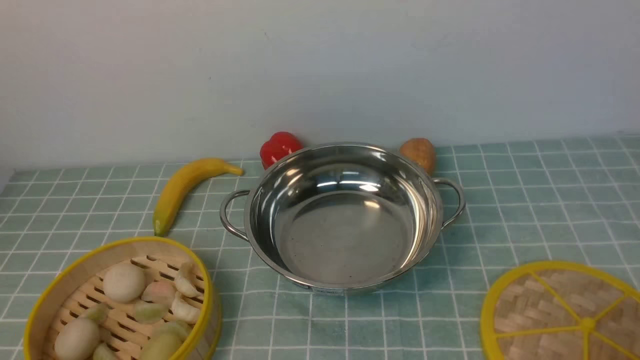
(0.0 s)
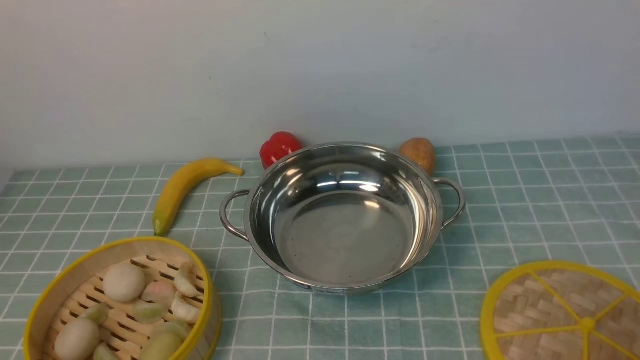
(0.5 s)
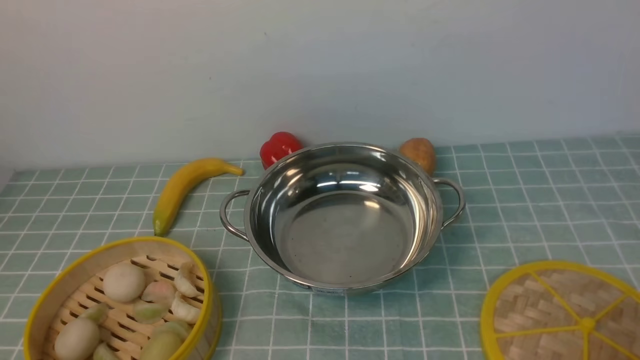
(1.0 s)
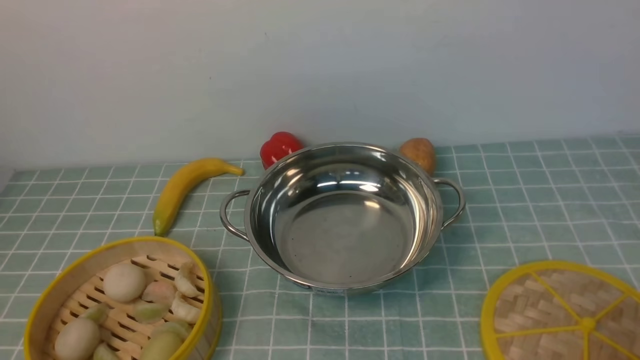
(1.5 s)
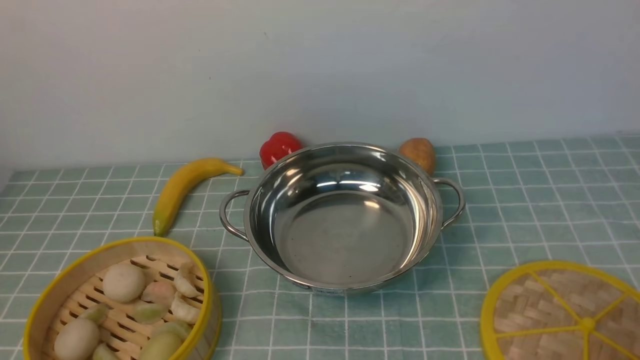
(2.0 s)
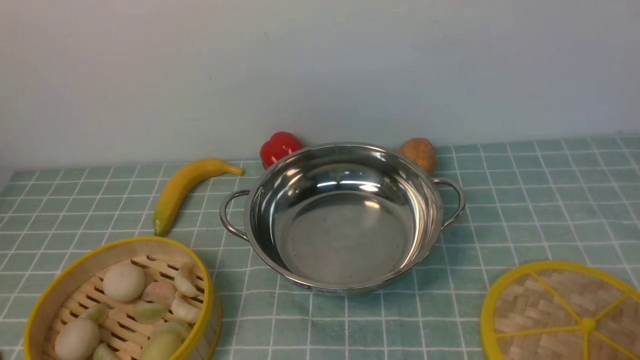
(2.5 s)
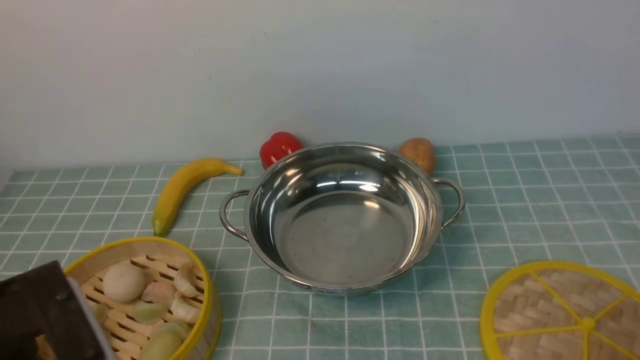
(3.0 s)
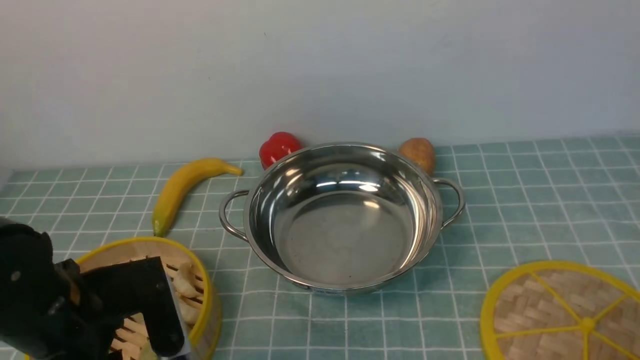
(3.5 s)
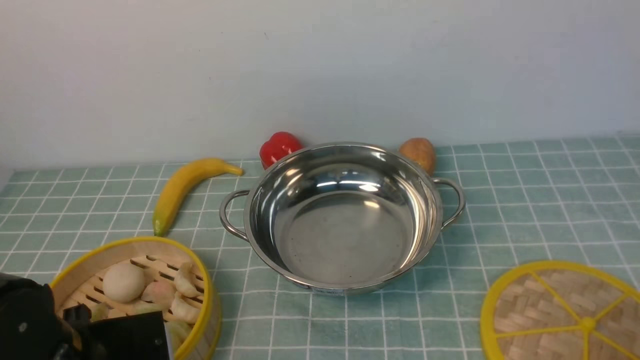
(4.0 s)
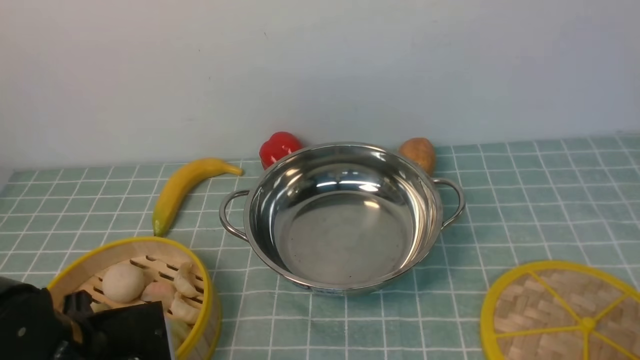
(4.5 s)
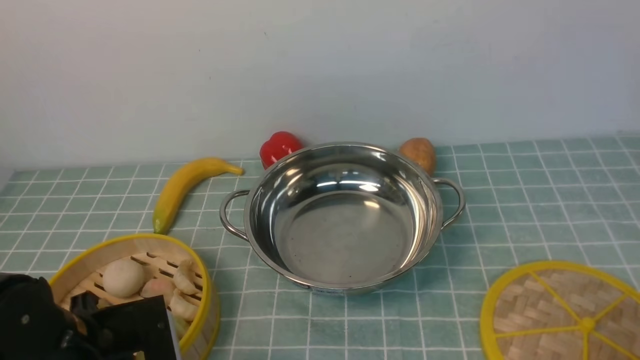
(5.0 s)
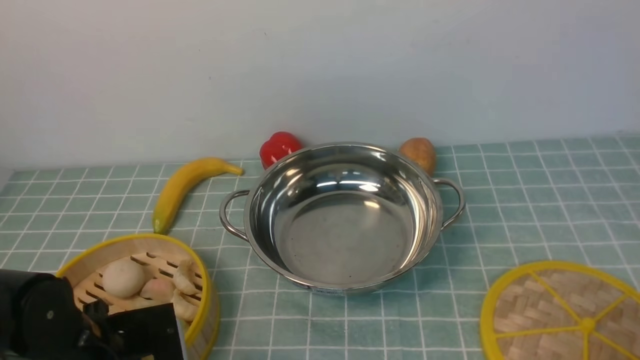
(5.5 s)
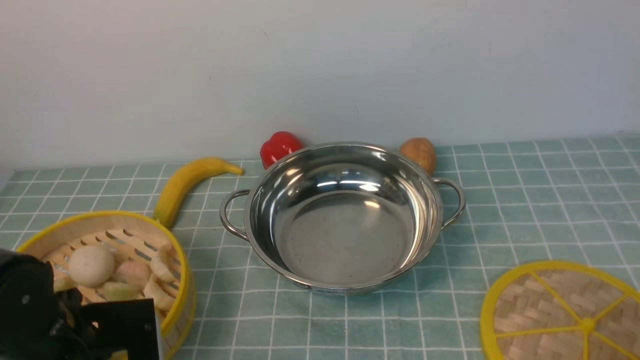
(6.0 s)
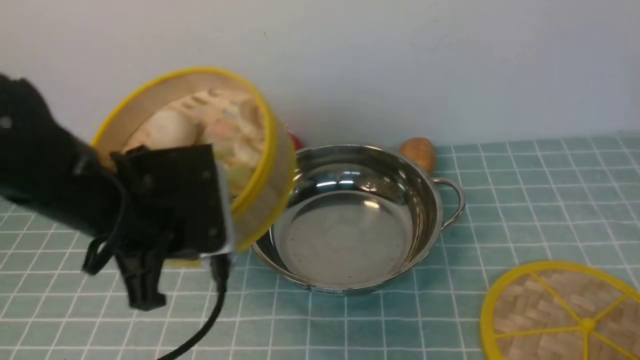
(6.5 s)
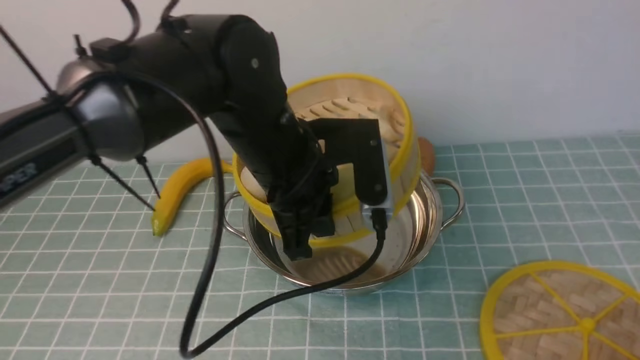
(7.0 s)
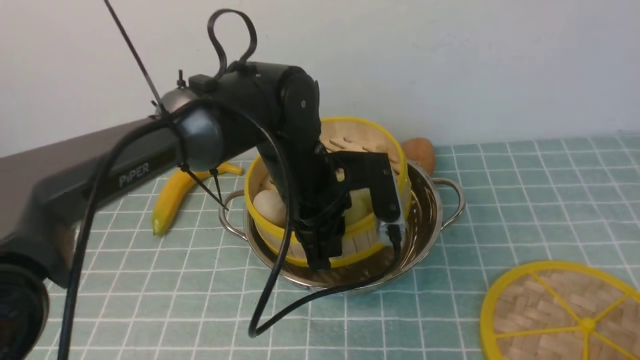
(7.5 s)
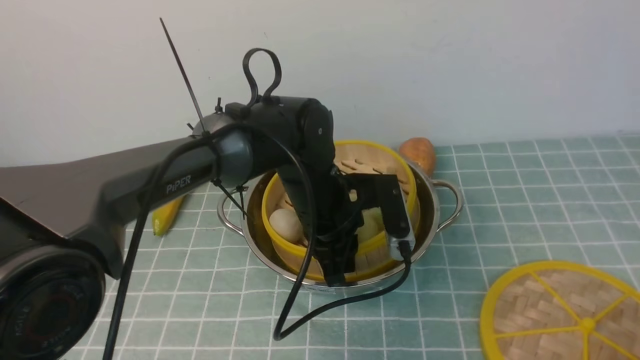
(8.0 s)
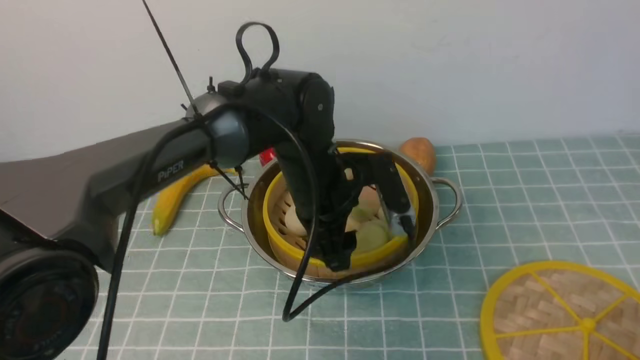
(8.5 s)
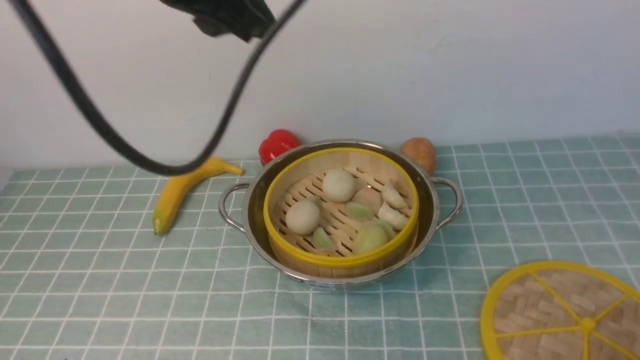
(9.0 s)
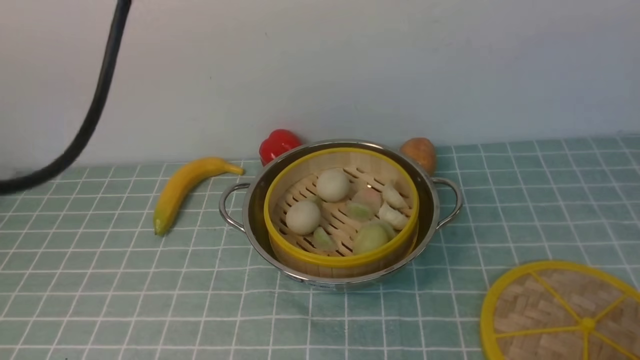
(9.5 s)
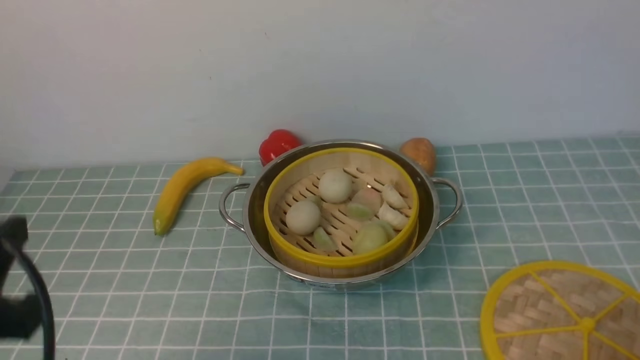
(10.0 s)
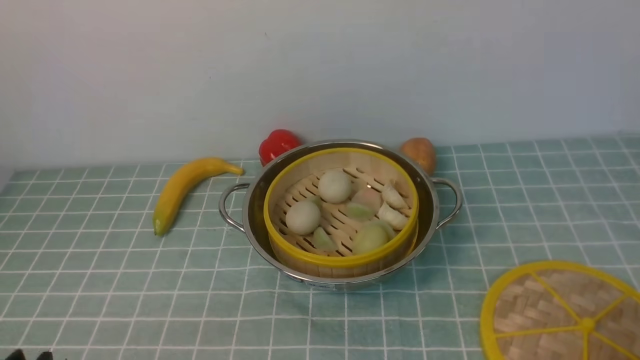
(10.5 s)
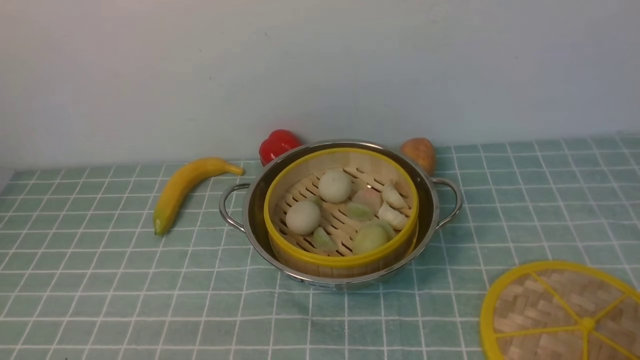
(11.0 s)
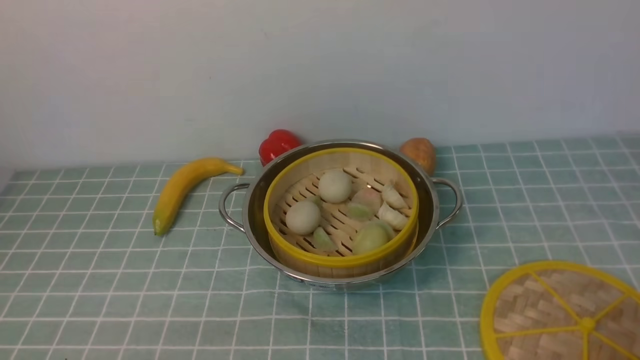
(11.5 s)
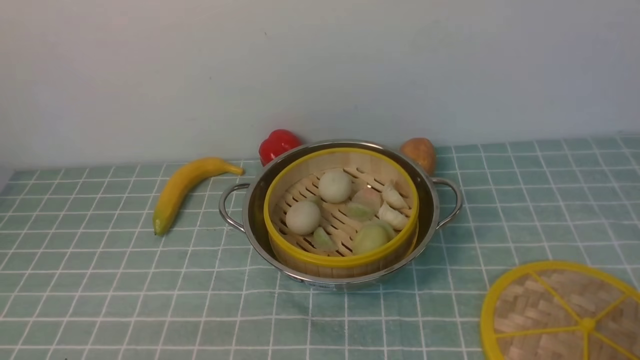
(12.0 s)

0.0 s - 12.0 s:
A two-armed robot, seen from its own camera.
Task of the whole recording: place the steamer in the pot on the blue tablecloth, and put the lid on the steamer.
Step, 0.0 s - 6.0 s: use the left arm to lift the steamer closest to it.
Step, 6.5 s - 8.5 s: use the left arm to put the steamer into the iron steamer pot in the middle.
2.0 s - 4.0 s: The left gripper goes roughly 15 cm forward and downward.
4.0 s - 6.0 s: The left gripper closes up.
6.0 s - 8.0 s: The left gripper shifts roughly 25 cm to the right and forward.
8.0 s - 10.0 s: The left gripper travels backward, to the left and upward by some 35 cm, and opens, then closes once more.
10.0 s - 12.0 s: The left gripper is displaced downward by about 15 cm.

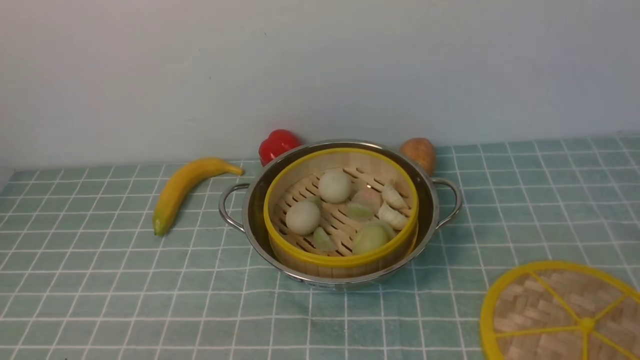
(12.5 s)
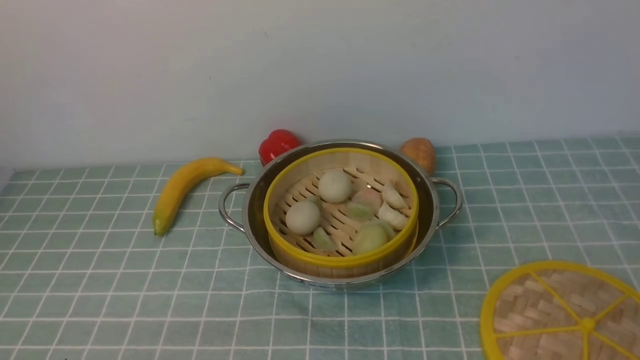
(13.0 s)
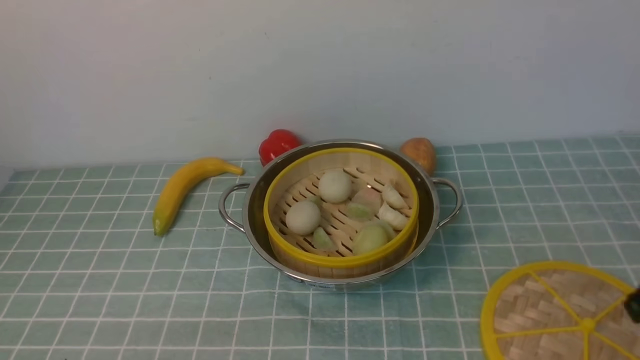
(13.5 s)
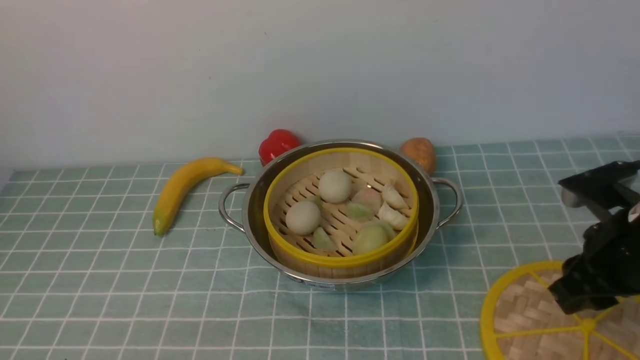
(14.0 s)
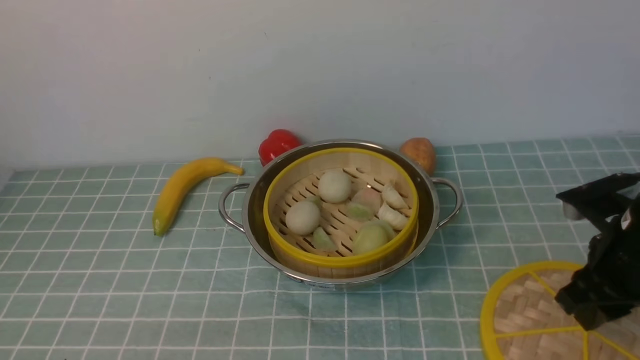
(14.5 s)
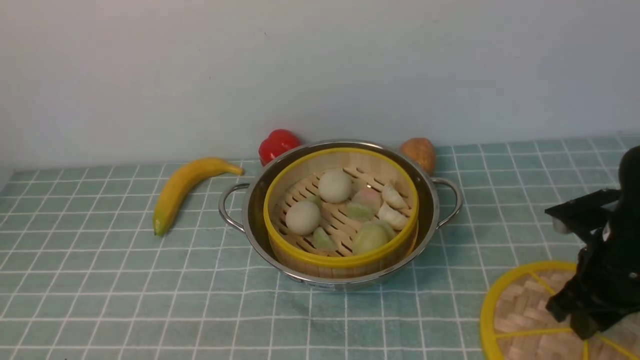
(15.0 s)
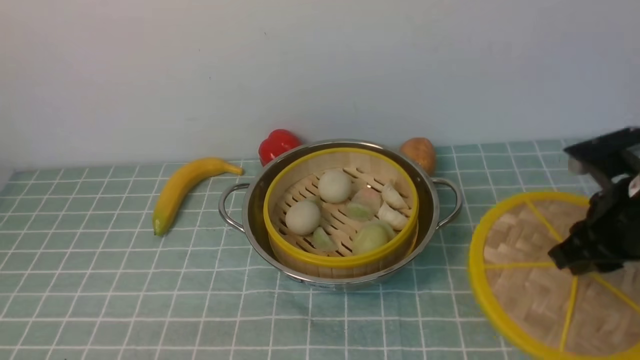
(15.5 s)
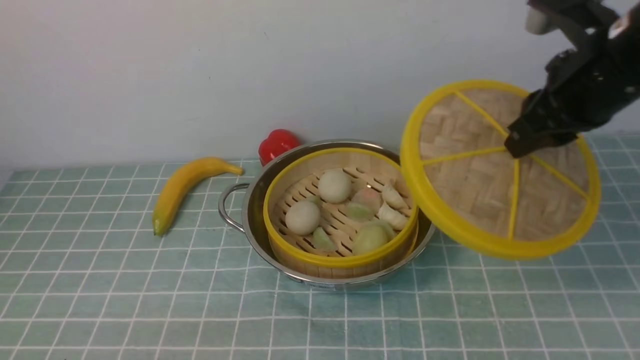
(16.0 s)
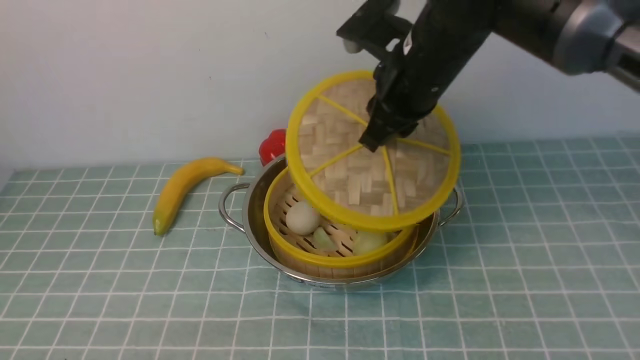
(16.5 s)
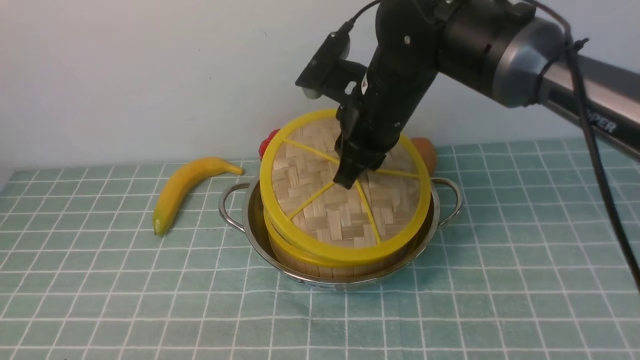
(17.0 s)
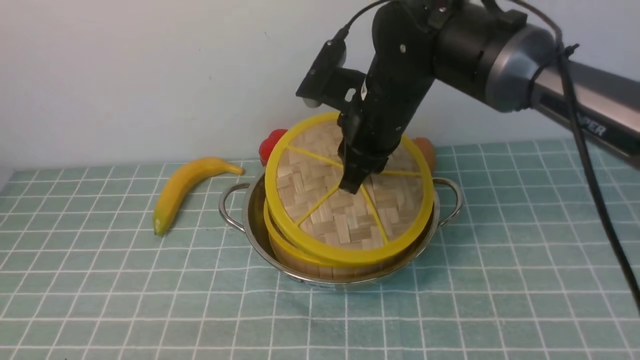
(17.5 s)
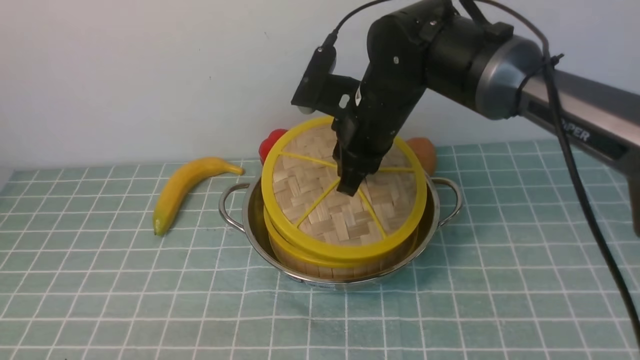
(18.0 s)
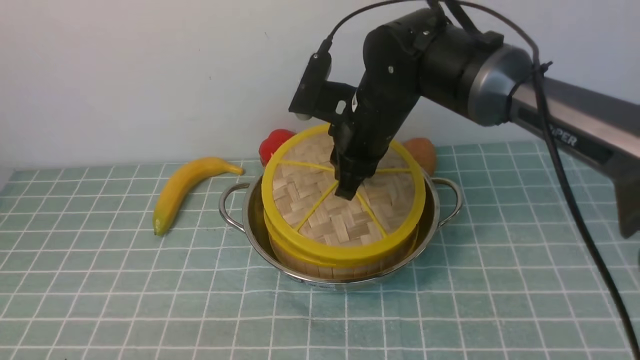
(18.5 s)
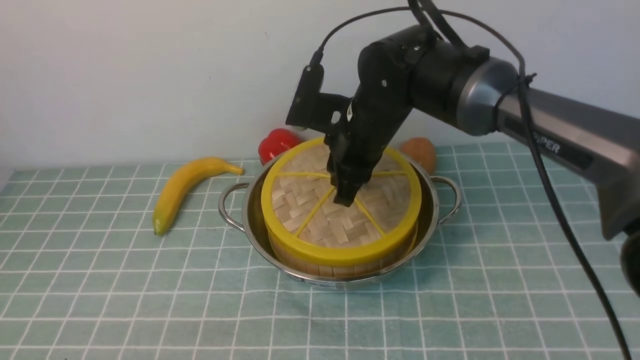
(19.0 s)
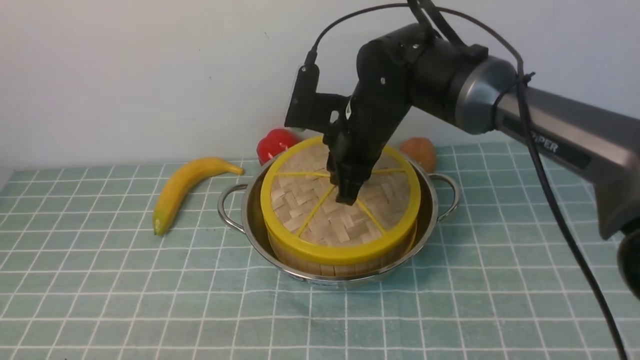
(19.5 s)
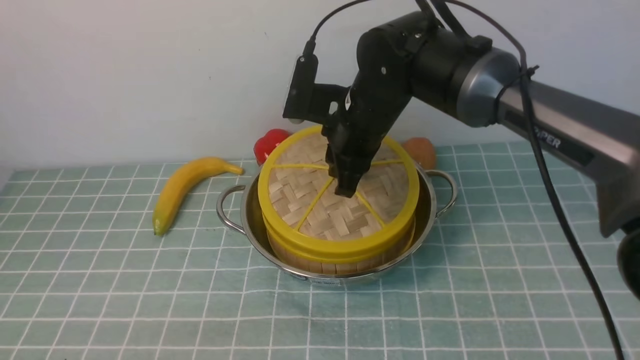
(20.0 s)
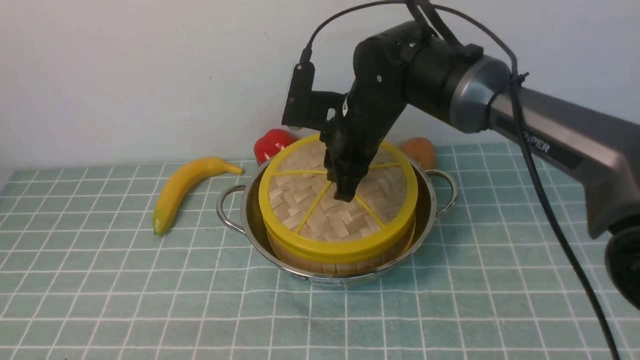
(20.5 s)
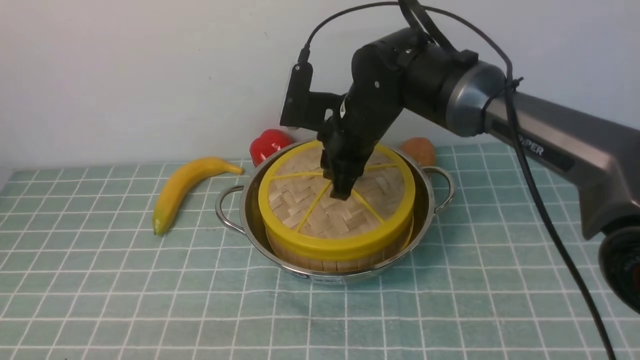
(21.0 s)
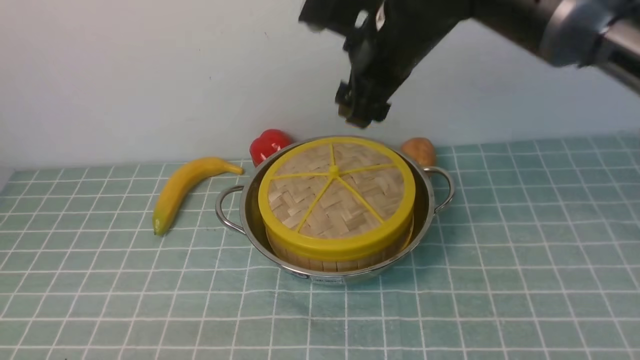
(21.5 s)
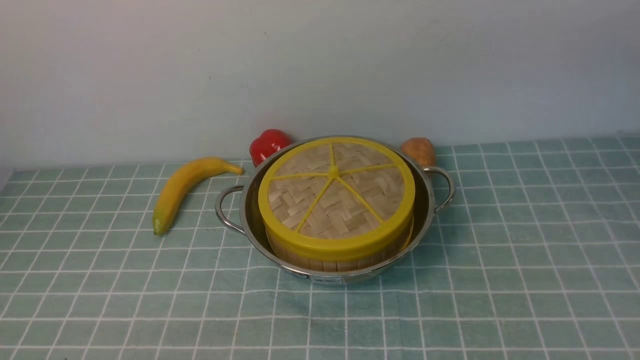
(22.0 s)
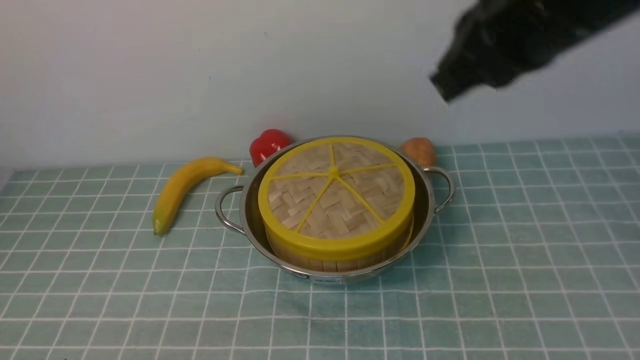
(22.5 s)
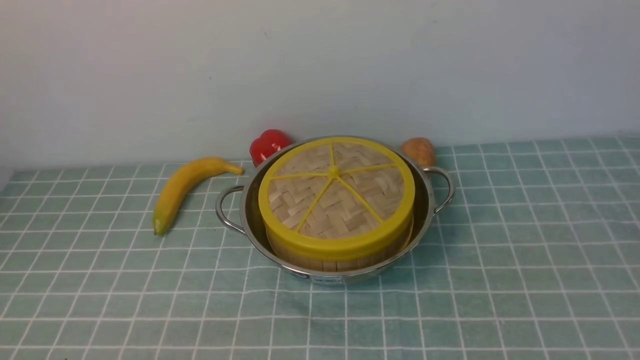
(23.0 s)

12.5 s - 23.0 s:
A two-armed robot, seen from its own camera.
Task of the whole recording: place the steamer in the pot on the blue tablecloth, and put the lid on the steamer.
Step, 12.5 s - 15.5 s: use the right arm to lift the lid of the steamer.
Step, 16.0 s - 21.5 s: use the right arm to place the steamer lid on the steamer.
12.5 s - 14.5 s: The right gripper goes roughly 25 cm forward and downward.
14.5 s - 16.5 s: The right gripper is displaced to the left, upward and forward by roughly 25 cm.
16.5 s - 19.0 s: The right gripper travels downward and to the left by some 10 cm.
19.0 s - 21.0 s: The right gripper opens up.
21.0 s - 23.0 s: The right gripper heads backward and to the right, covering some 40 cm, and closes up.
